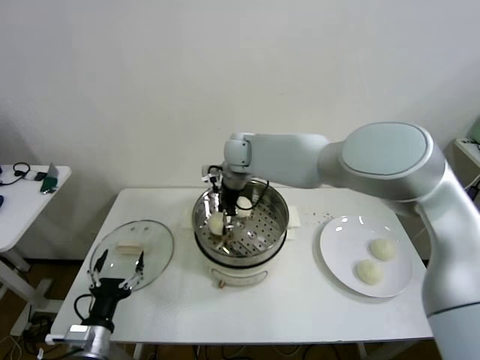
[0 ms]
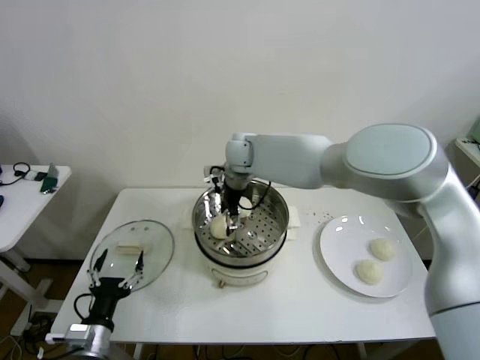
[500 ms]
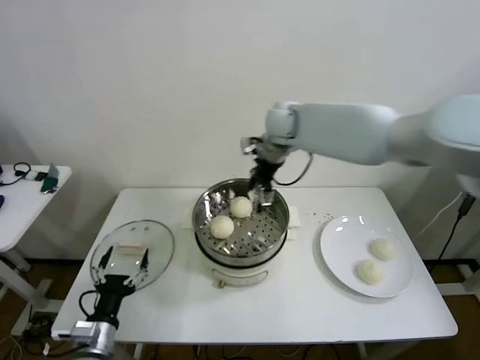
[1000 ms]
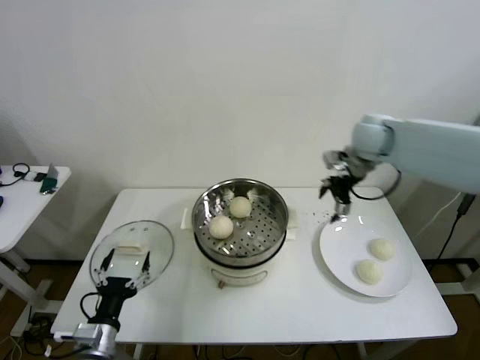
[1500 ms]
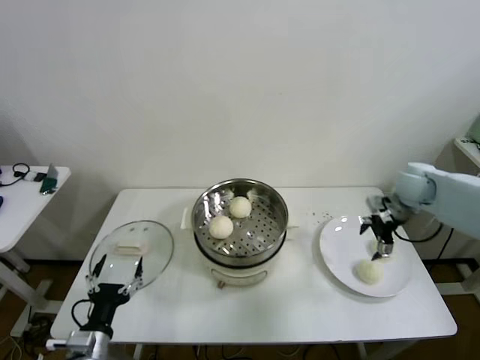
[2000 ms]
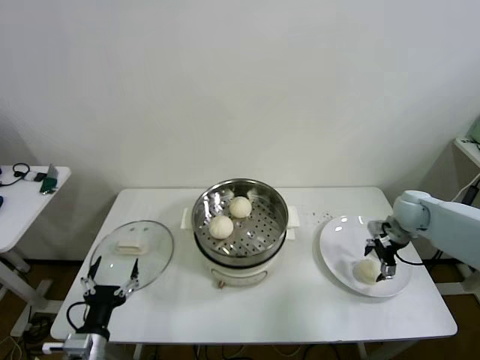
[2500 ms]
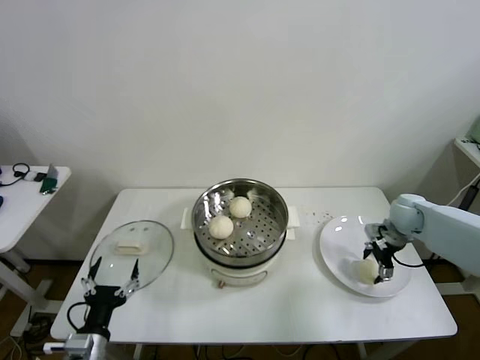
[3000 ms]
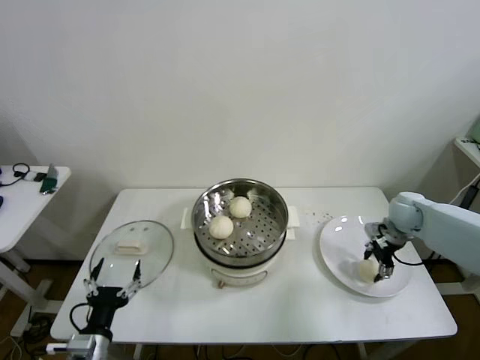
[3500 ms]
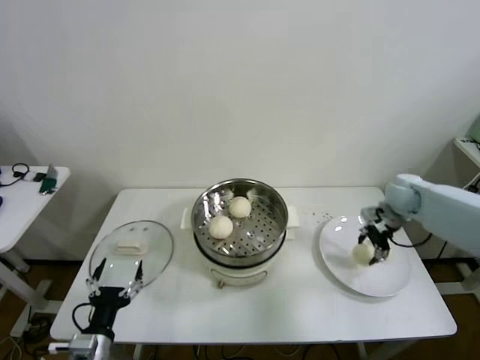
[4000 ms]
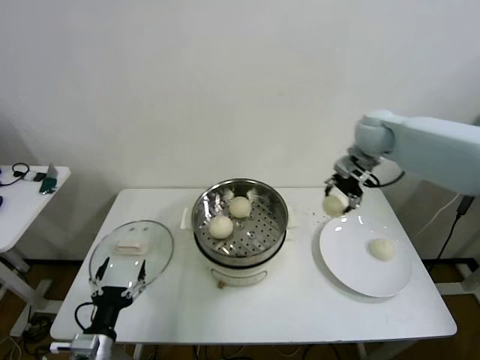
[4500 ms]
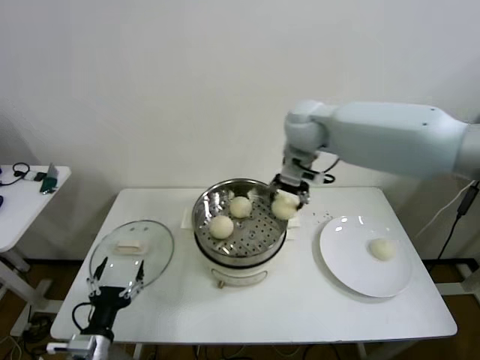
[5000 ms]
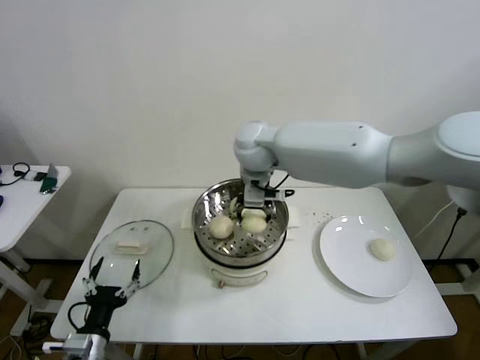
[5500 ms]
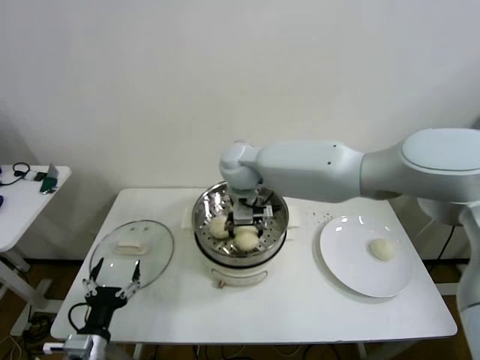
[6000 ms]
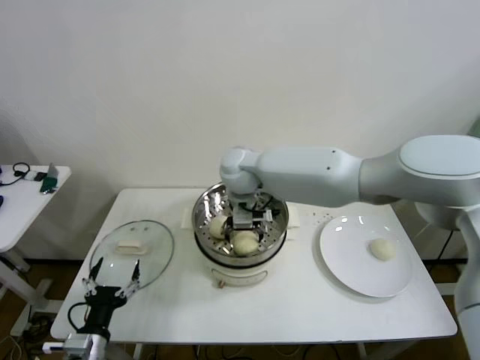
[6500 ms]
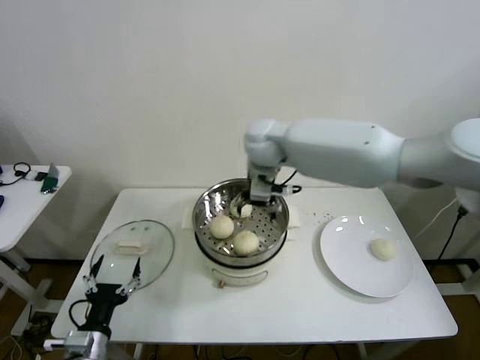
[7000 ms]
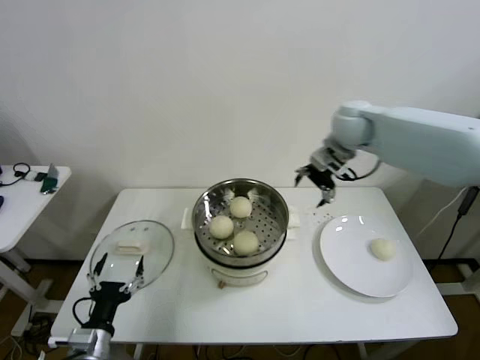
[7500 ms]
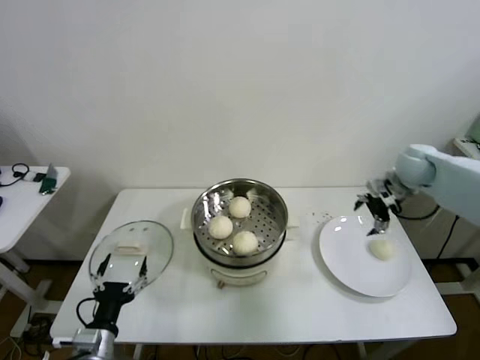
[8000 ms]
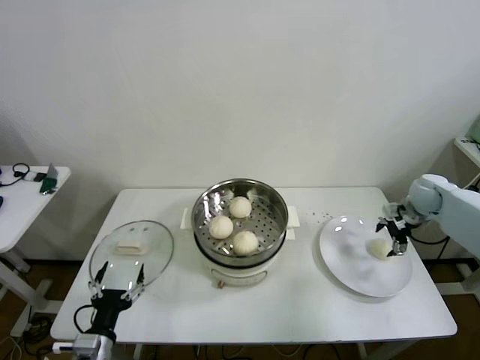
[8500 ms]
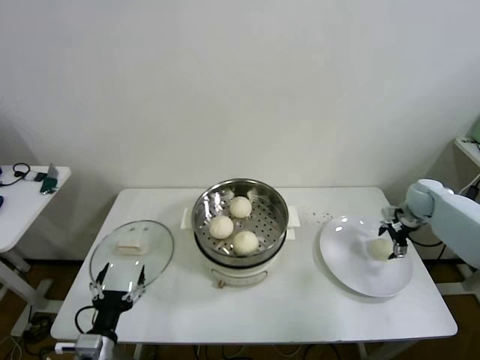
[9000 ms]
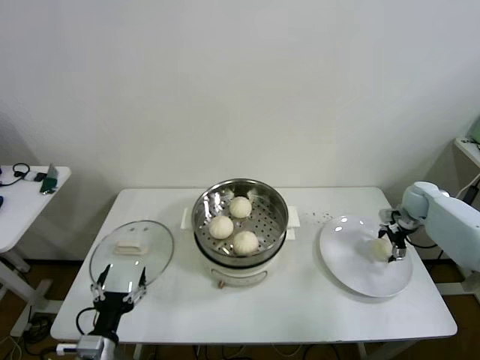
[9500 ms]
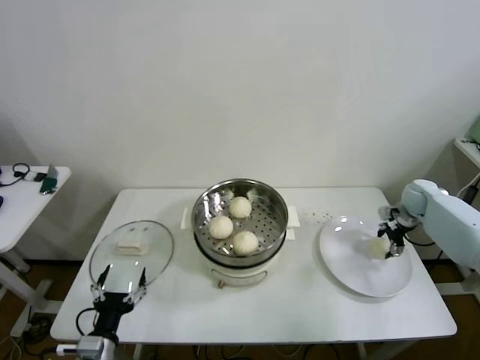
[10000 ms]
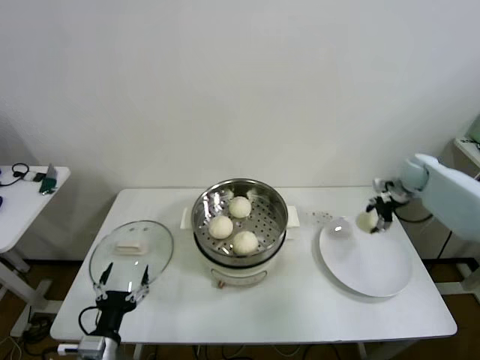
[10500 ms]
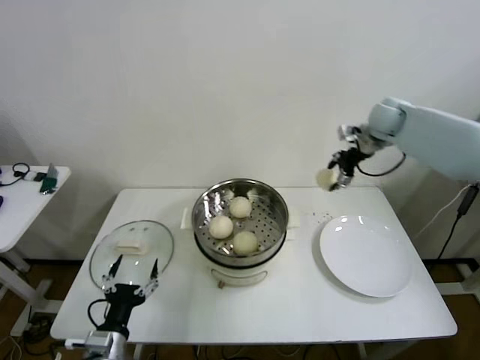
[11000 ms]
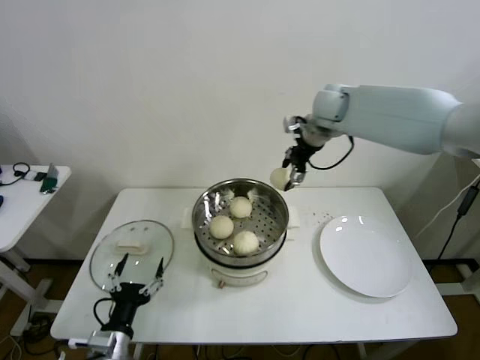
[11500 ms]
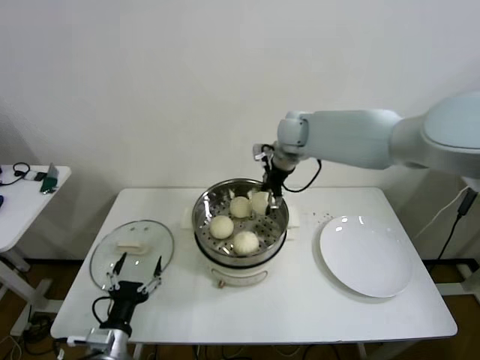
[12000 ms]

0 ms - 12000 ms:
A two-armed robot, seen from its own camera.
Step, 500 ms - 3000 ms: Grasp the baozi in the plate with right gripper.
Step, 3500 ms - 6500 ms: Place the baozi on the steamer with right gripper.
Step, 7000 ms - 9500 ms: Grasp the baozi in the plate with right gripper.
0 ms - 2000 ms: The right gripper moves to the right, approximately 40 cm, and opens its fingers.
2000 ms - 4000 ms: The right gripper reaches approximately 10 cm downward, then returns, and closes.
4000 ms - 6000 ms: The right gripper moves to the left, approximately 40 cm.
6000 ms - 8000 ms: The right gripper goes about 40 cm to the right, and opens its fingers.
8000 ms - 10000 ms: The right gripper travels downward and to the right by approximately 15 cm, and closes up.
10000 ms - 12000 ms: The right gripper heads to the left and upward, covering roughly 40 cm.

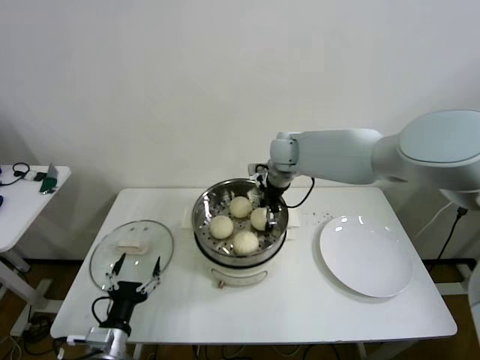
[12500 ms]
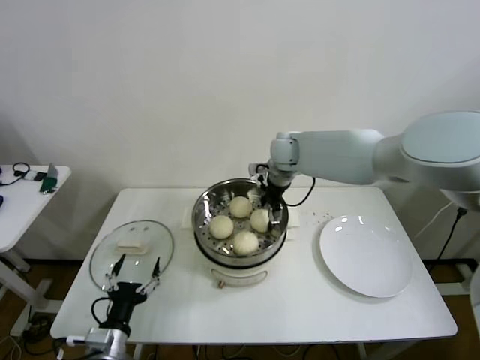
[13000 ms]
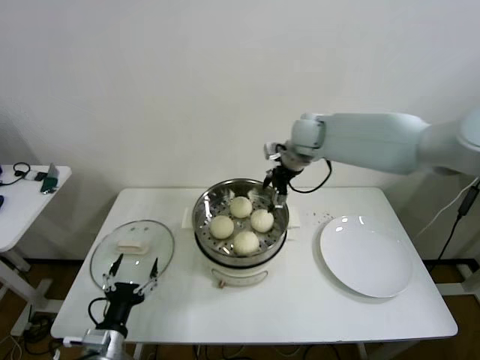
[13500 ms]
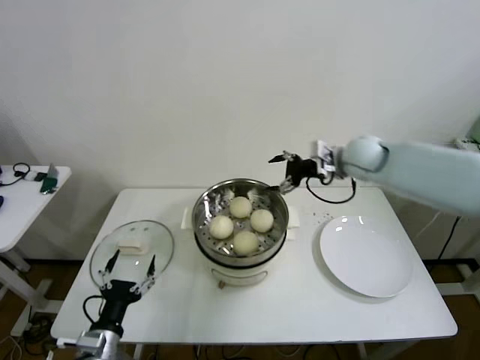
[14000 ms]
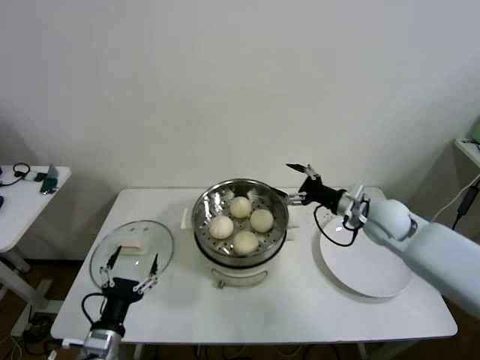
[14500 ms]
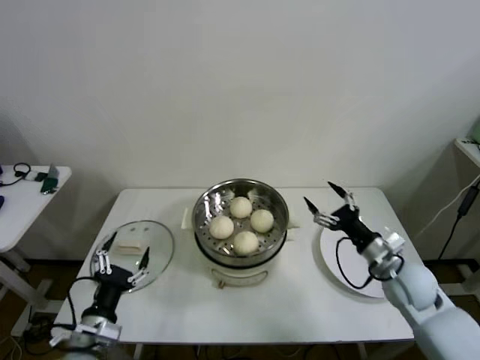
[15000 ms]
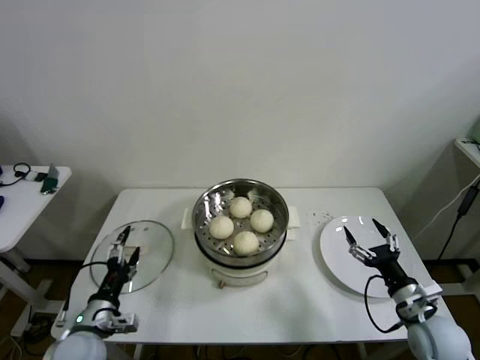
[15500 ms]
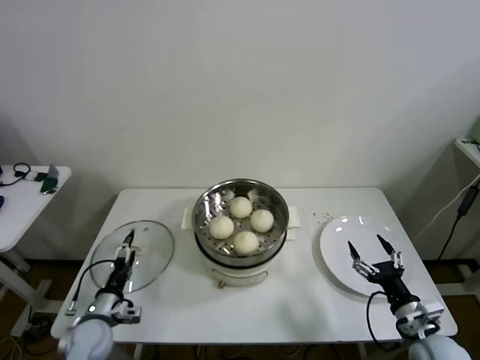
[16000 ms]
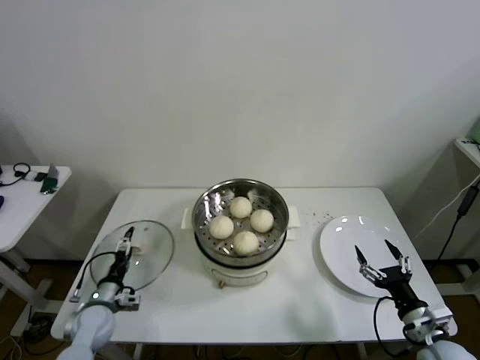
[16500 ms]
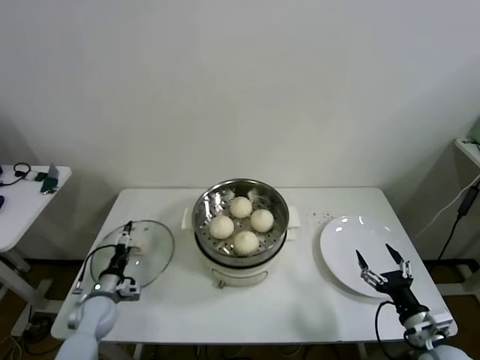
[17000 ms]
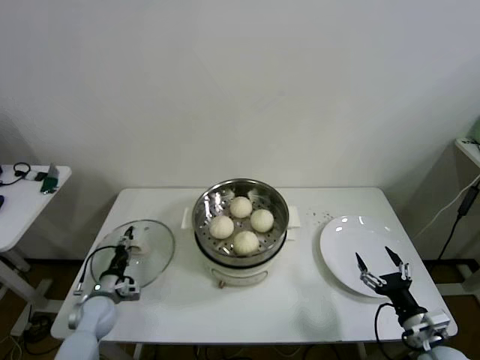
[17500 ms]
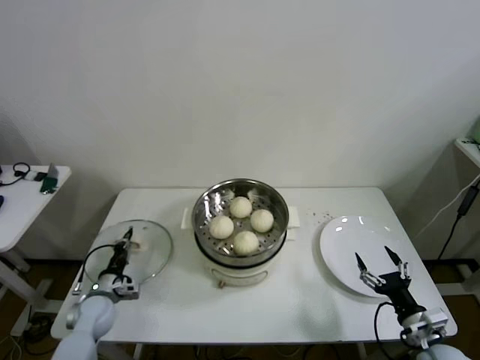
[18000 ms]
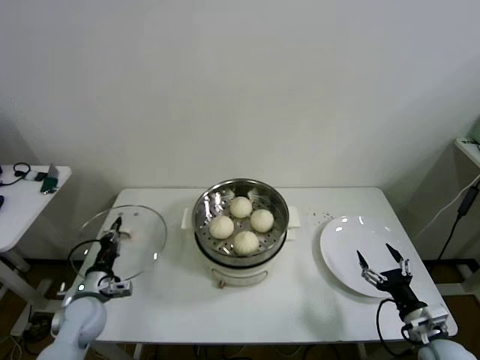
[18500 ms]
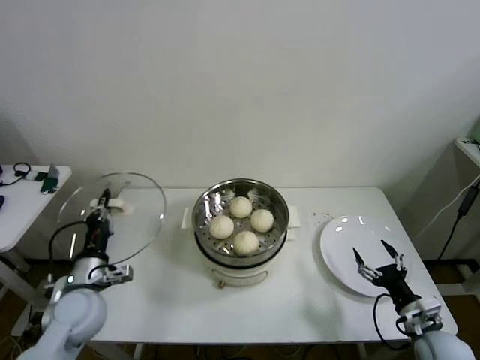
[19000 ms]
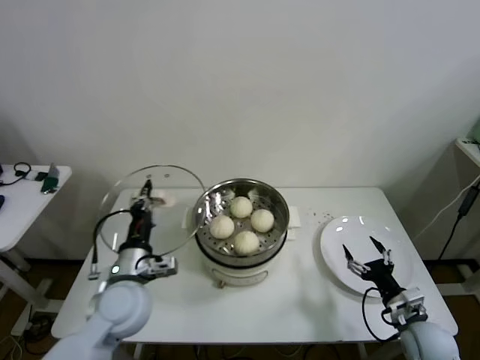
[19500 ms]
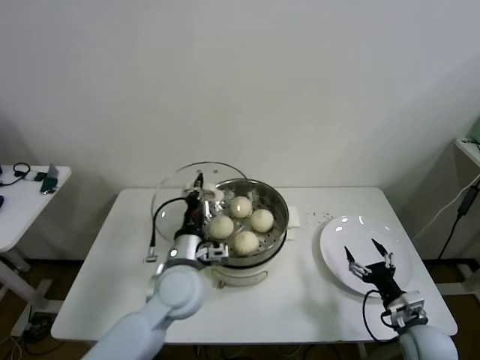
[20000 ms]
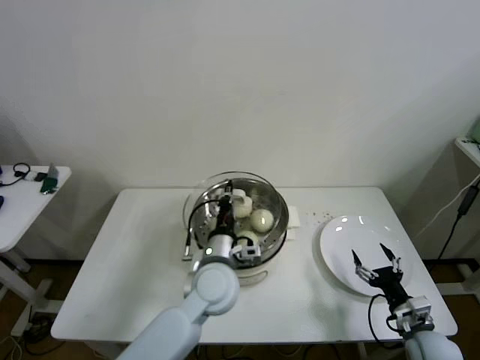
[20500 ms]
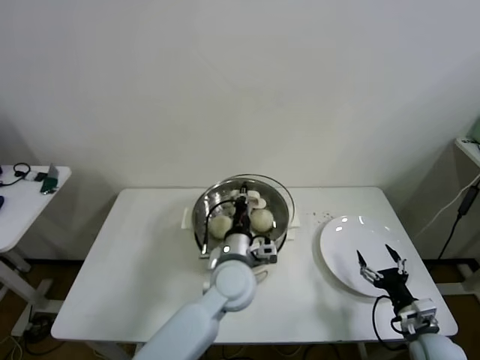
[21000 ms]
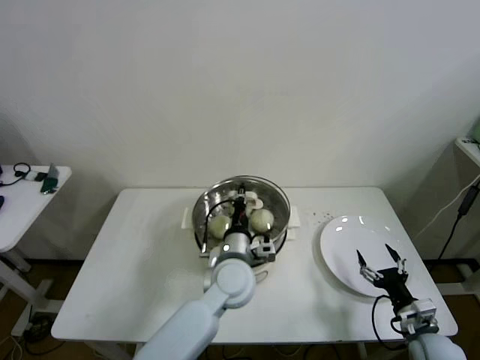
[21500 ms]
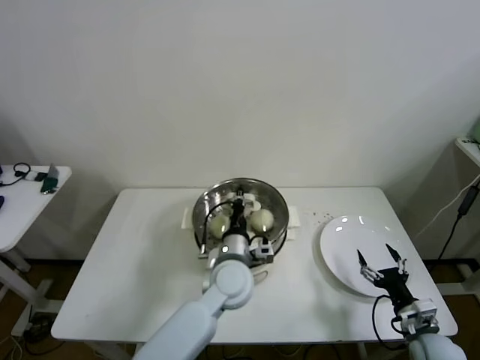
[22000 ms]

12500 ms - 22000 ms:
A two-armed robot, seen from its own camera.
Step, 13500 ms - 17500 ms: Grasp the pot lid with left gripper.
12500 ms - 14500 ms: The right gripper shifts roughly 25 cm to the right, backward and downward, and opens its fingers.
14500 ms - 16500 ms: The left gripper is displaced forward, downward and to the left by about 20 cm, while the right gripper moves backward and downward, roughly 30 cm.
16500 ms - 18000 ms: The left gripper closes.
18000 ms - 20000 ms: The left gripper goes about 30 cm to the right and upward.
20000 ms - 22000 ms: The left gripper goes about 10 cm to the right.

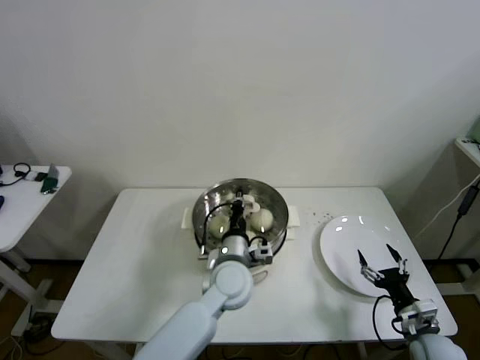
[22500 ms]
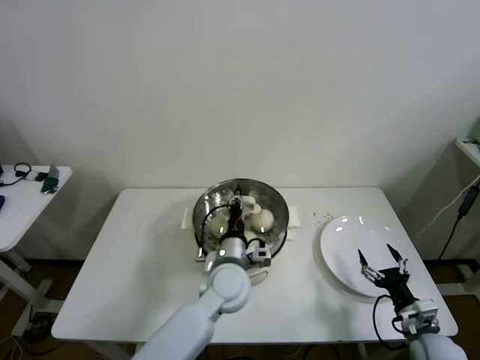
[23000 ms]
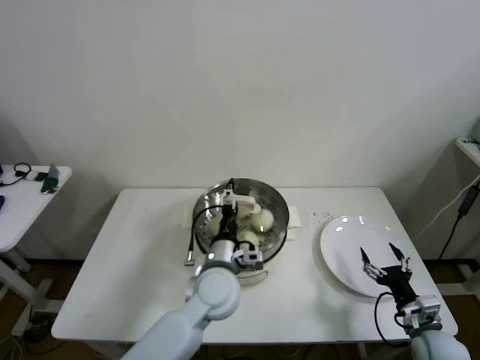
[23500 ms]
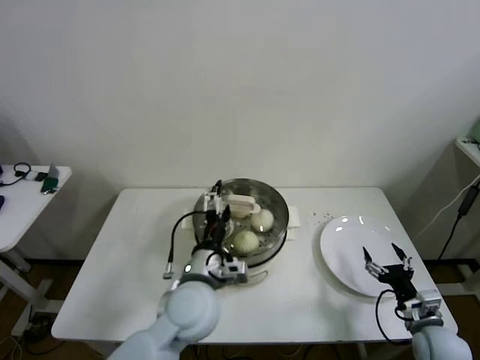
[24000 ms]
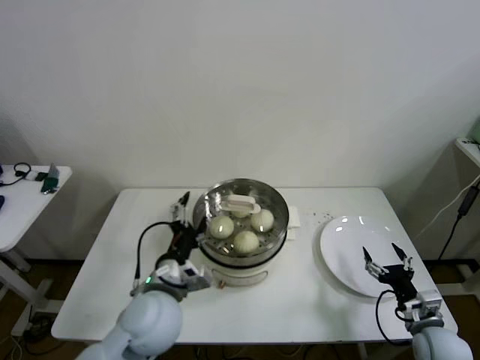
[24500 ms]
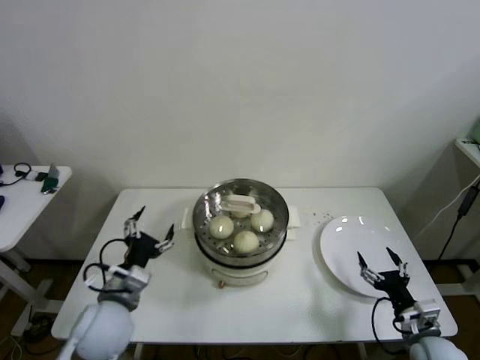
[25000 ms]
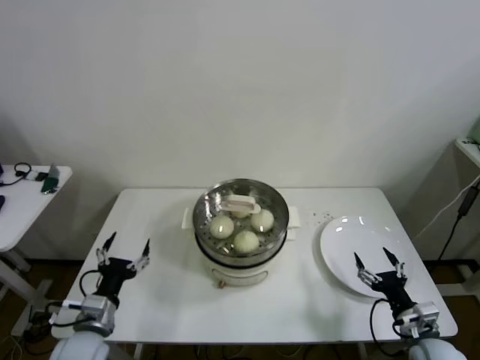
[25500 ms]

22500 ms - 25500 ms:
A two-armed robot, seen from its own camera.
22500 ms - 24000 ms: The left gripper heads backward and to the left, covering roughly 10 cm, and opens up.
24000 ms - 25500 ms: The left gripper travels to the left by approximately 25 cm.
